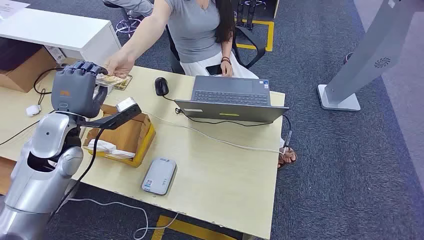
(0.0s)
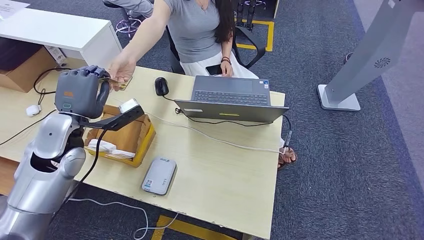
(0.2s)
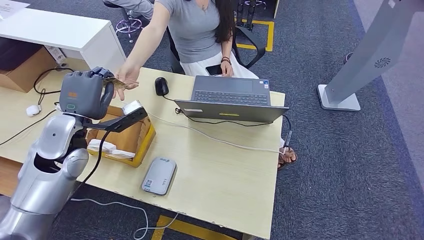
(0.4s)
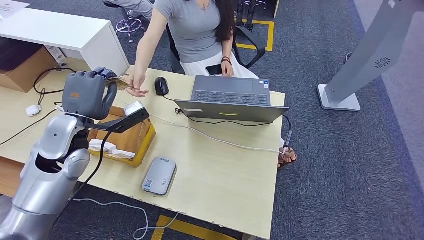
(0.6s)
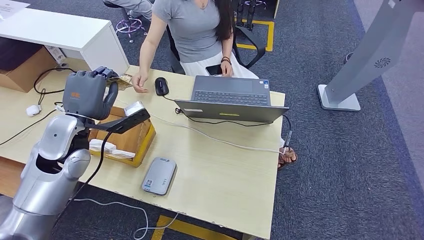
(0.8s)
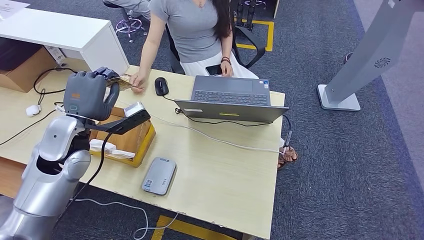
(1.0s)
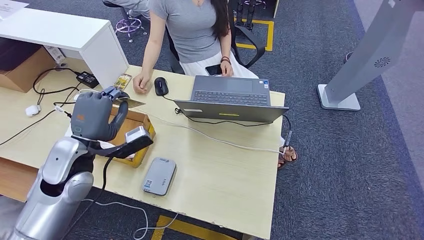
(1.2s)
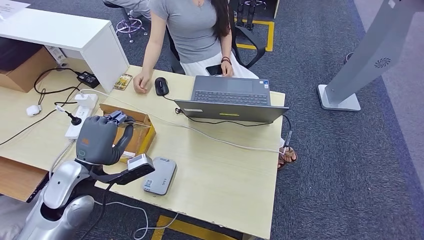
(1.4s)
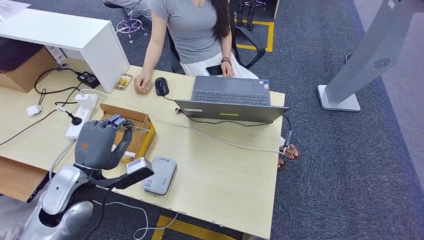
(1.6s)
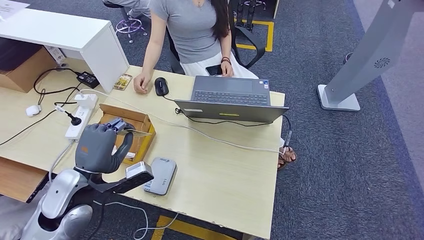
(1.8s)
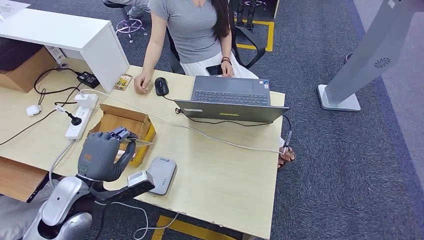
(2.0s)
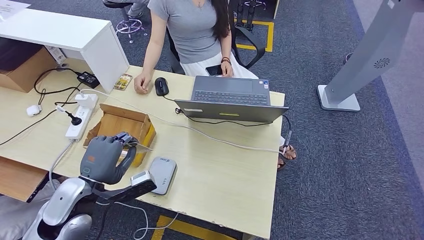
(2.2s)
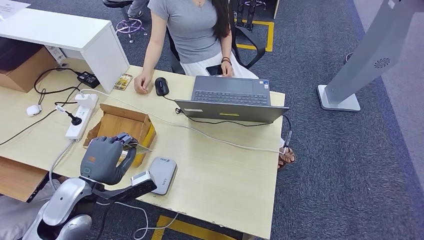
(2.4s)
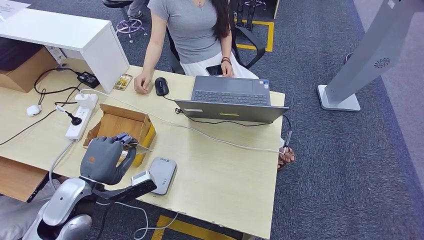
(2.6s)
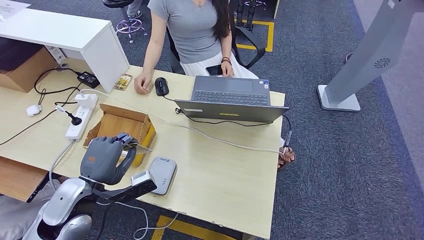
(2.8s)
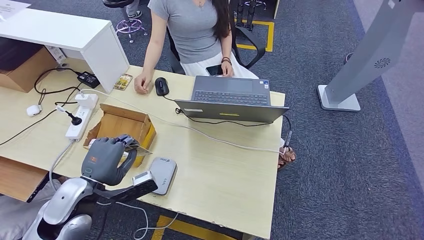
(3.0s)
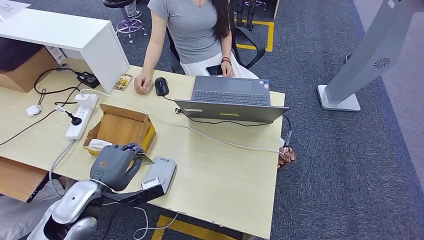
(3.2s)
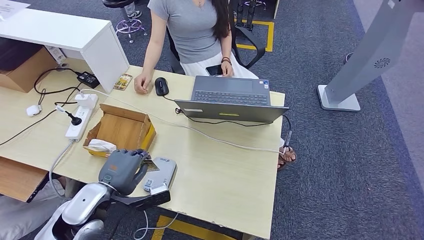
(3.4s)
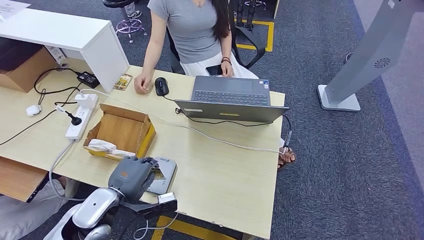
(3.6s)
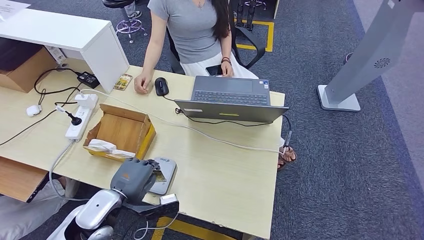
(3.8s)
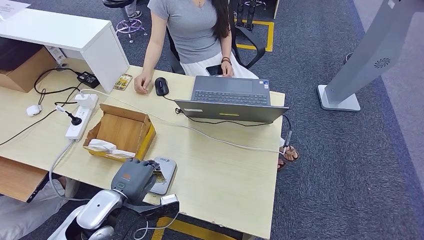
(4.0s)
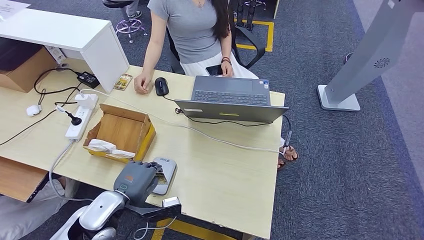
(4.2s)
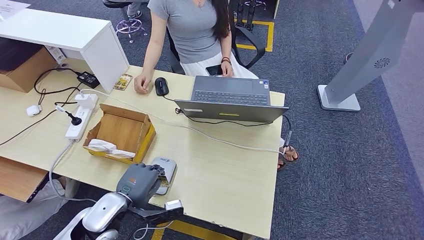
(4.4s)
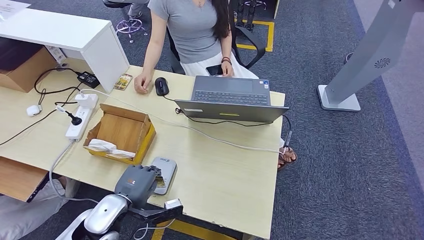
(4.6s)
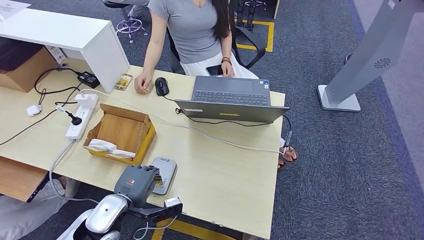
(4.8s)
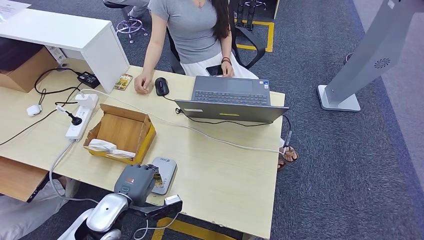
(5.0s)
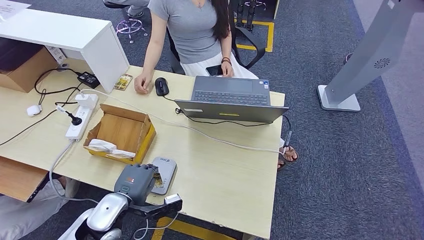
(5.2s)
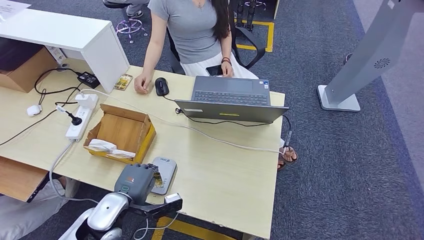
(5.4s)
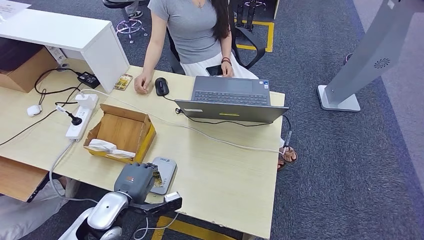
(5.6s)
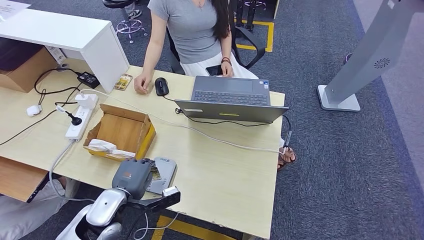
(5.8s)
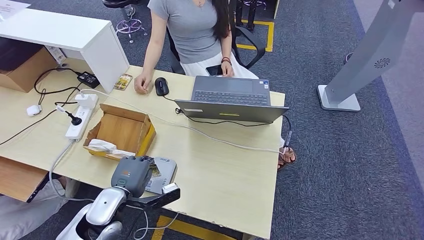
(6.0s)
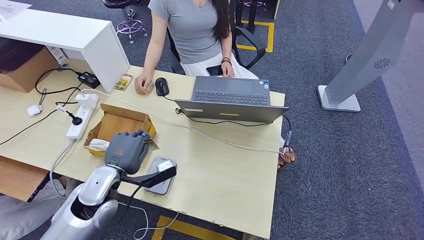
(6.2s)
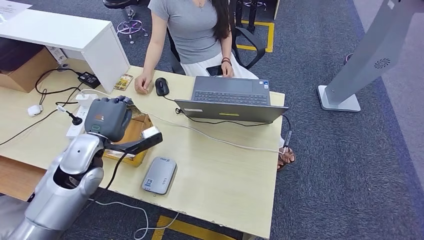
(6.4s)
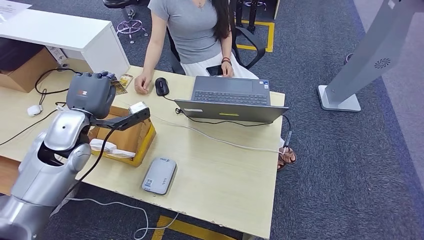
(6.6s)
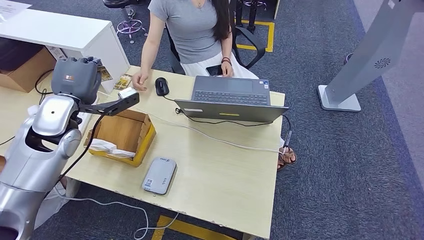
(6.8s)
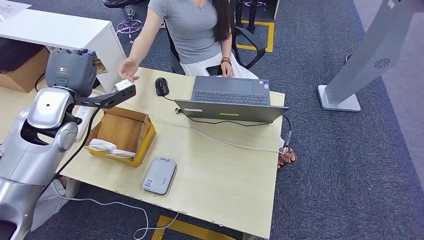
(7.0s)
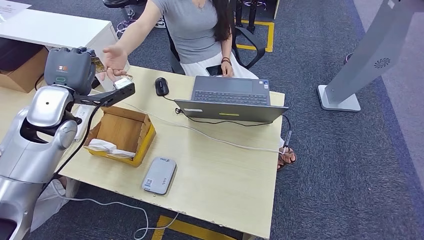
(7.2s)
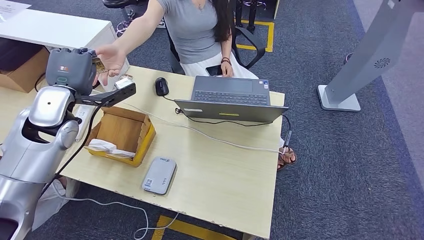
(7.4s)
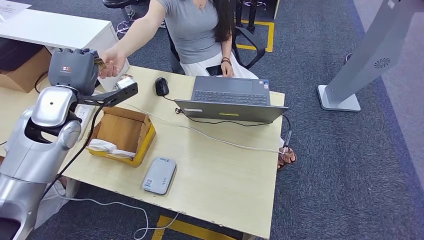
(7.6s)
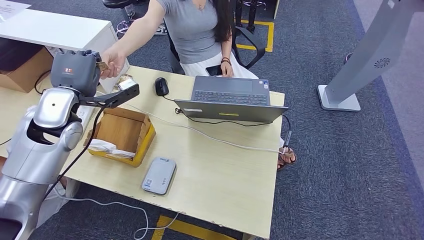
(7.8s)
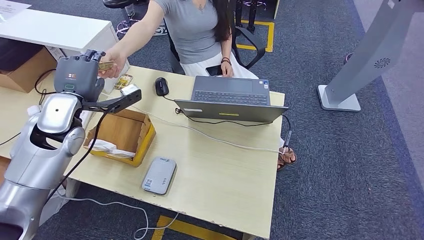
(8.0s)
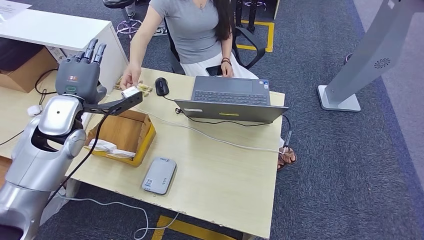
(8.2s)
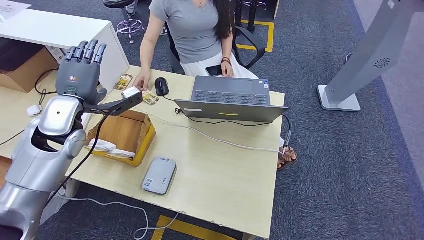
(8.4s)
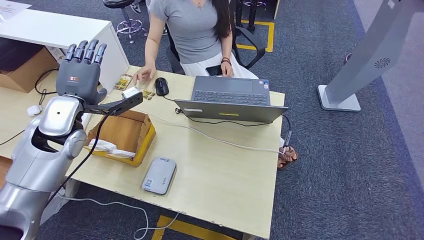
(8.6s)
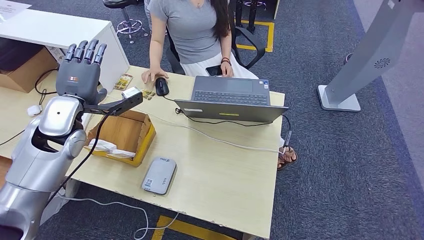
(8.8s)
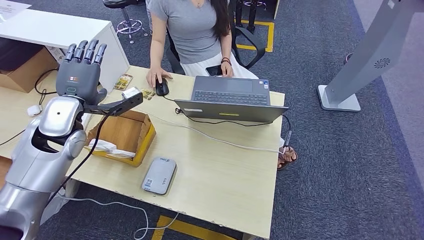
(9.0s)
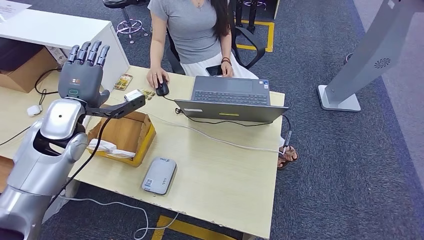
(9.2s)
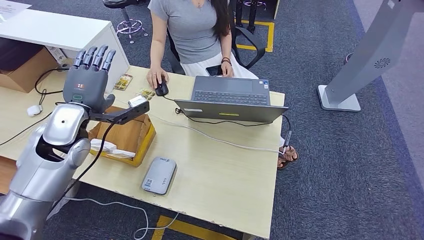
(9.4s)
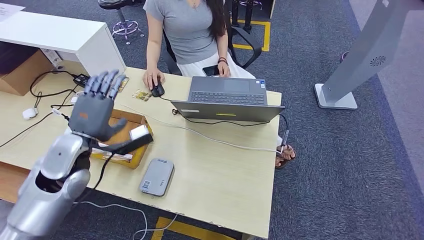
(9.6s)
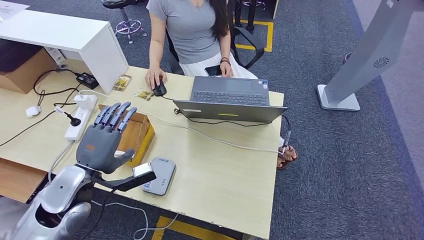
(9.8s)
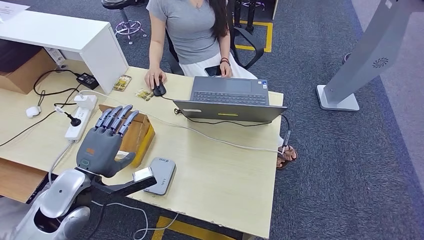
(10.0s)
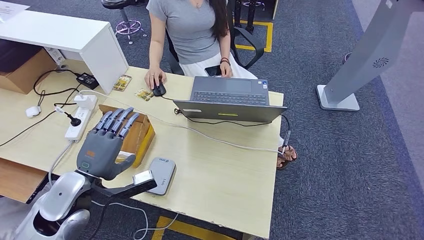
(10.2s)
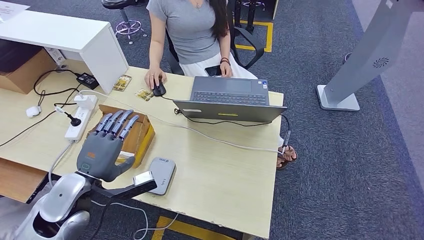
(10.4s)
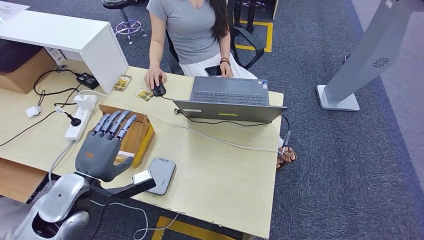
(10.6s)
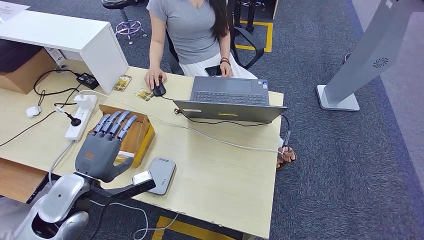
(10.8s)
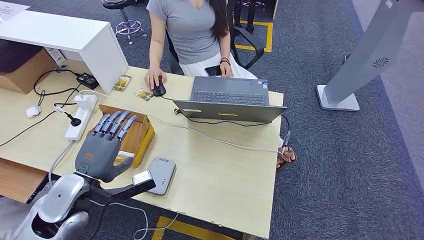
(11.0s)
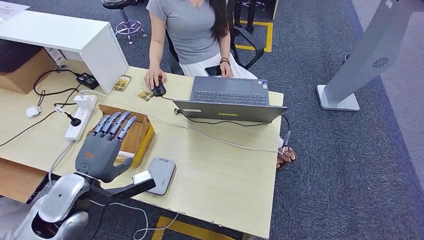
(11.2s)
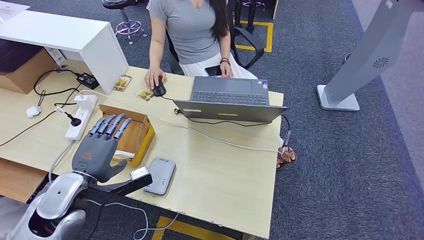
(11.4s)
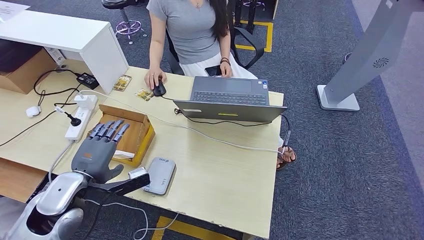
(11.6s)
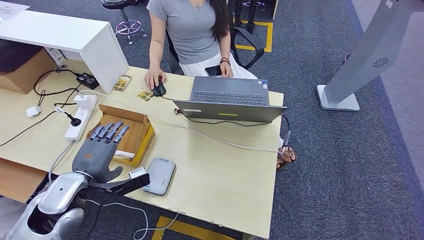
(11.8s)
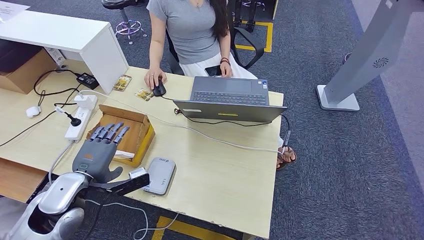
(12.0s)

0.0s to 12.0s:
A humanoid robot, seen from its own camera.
Step, 0.0s to 0.8s: Take the ID card from the person's hand.
Step, 1.0s to 6.0s: Place the ID card on the card reader.
Step, 6.2s to 10.6s: Hand the ID card to the person.
1.6s to 3.0s: The hands stay close to where they were, moving slightly.
3.0s to 4.4s: The left hand moves downward and to the right, roughly 10 cm.
4.4s to 6.0s: There are only small adjustments of the hands.
6.0s to 7.6s: The left hand shifts about 25 cm upward, forward and to the left.
7.6s to 9.0s: The hands make only small movements.
9.0s to 10.4s: The left hand heads backward and downward, covering approximately 15 cm.
10.4s to 12.0s: The hands stay close to where they were, moving slightly.

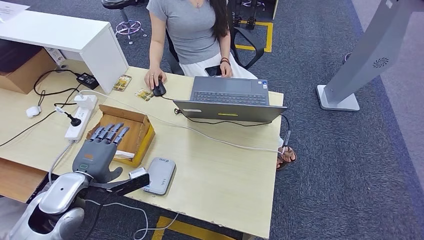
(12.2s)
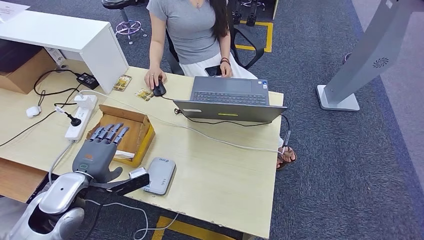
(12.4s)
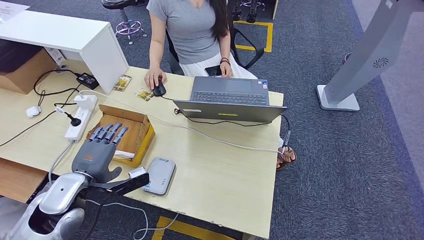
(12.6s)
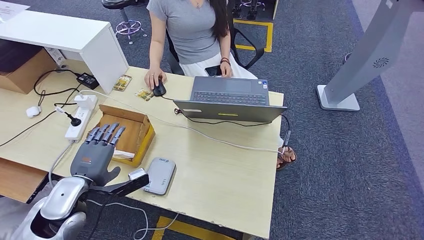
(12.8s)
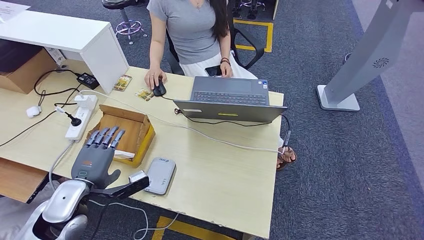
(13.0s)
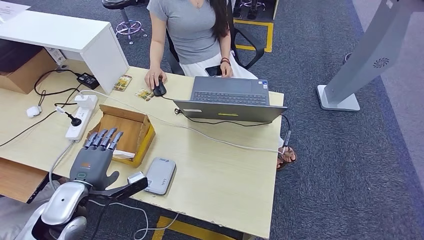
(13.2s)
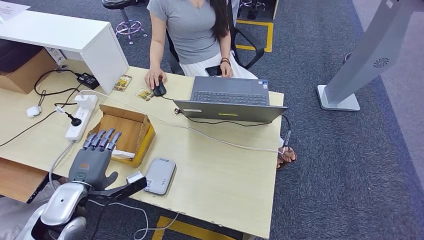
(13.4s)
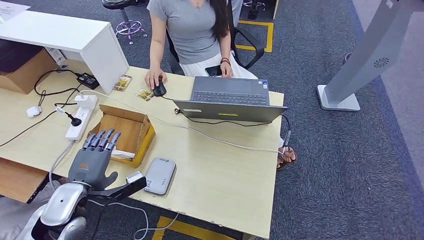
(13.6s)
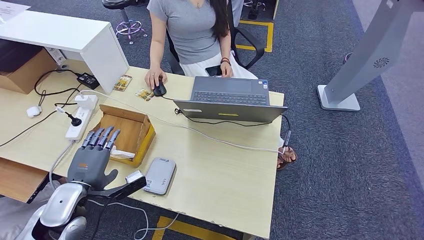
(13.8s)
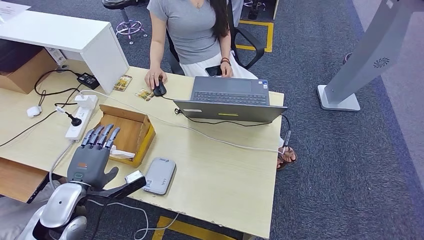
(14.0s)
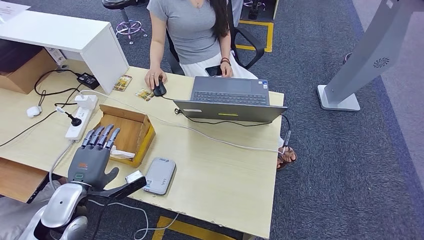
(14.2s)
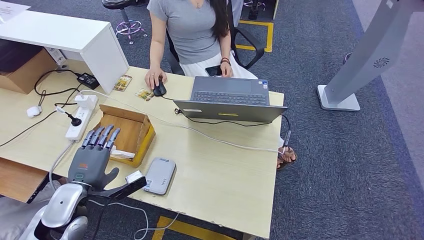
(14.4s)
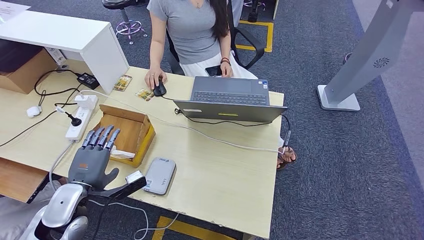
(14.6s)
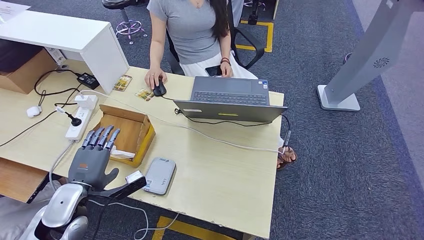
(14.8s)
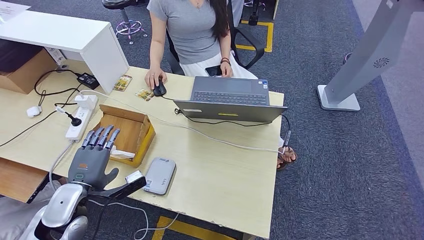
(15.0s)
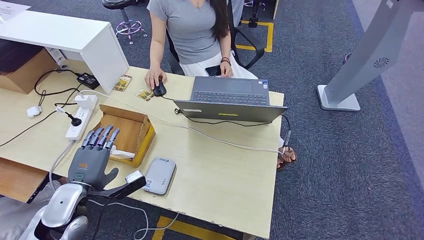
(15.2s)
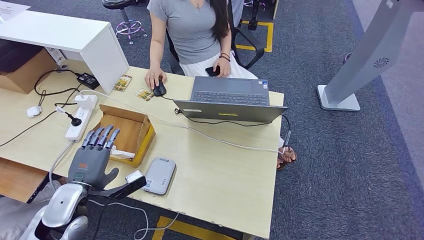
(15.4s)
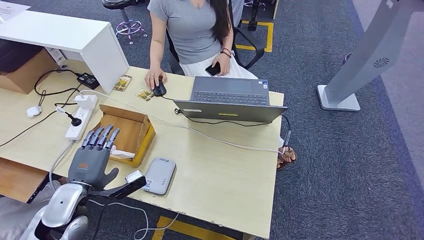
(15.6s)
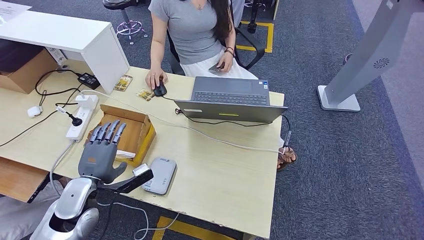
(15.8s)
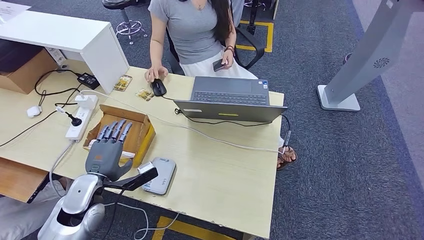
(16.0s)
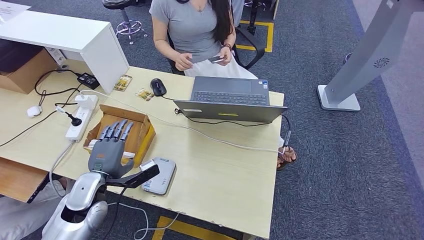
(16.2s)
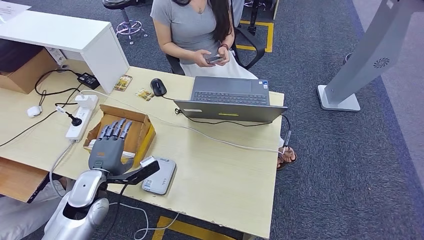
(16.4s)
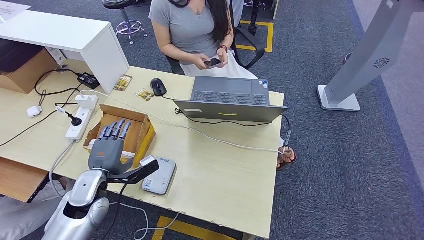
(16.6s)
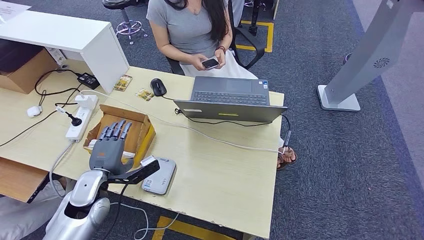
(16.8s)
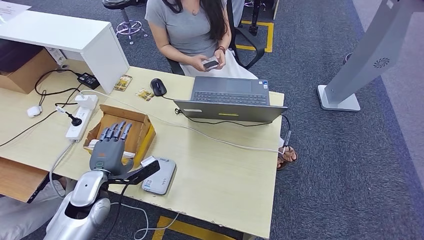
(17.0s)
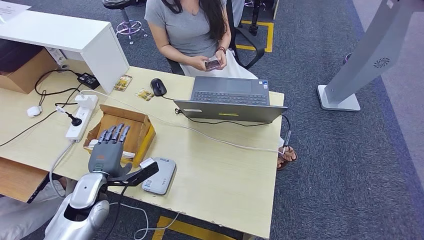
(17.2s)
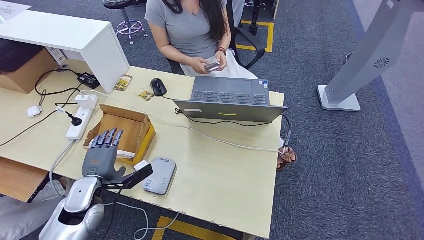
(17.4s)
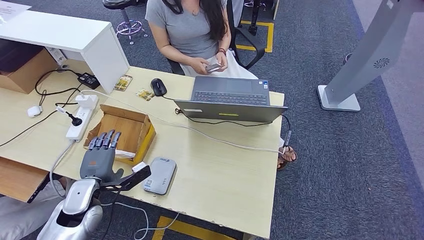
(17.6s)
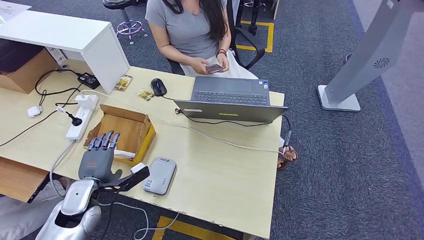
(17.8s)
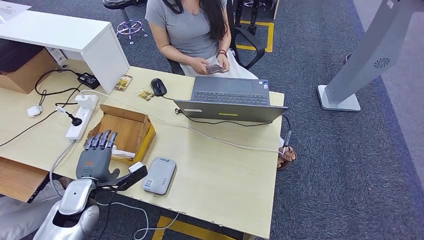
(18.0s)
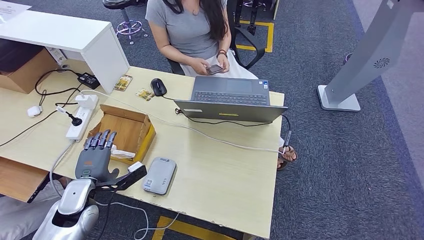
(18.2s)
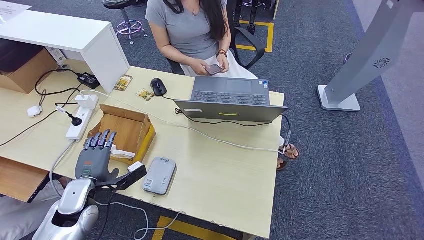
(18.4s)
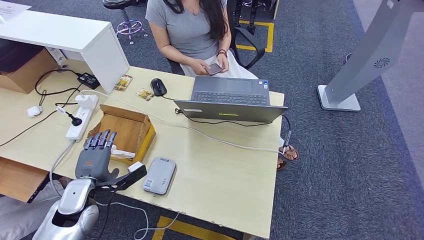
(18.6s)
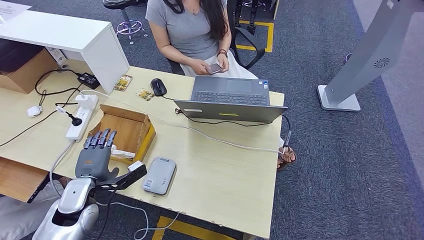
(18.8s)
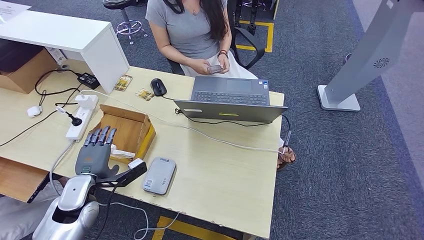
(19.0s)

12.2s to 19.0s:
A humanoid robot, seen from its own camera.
12.2s to 15.0s: The hands move only a little.
15.0s to 17.6s: There are only small adjustments of the hands.
17.6s to 19.0s: Both hands stay about where they are.
